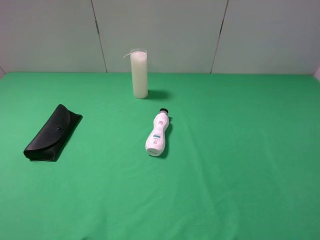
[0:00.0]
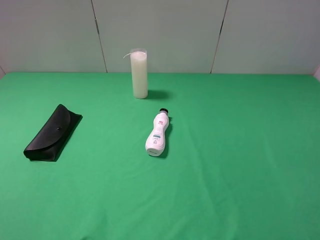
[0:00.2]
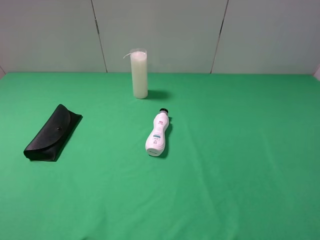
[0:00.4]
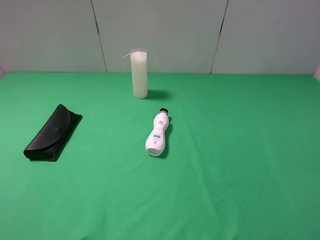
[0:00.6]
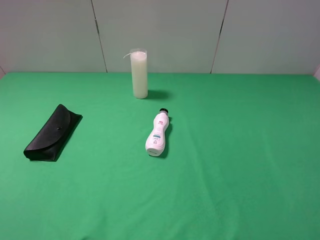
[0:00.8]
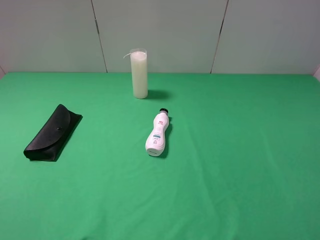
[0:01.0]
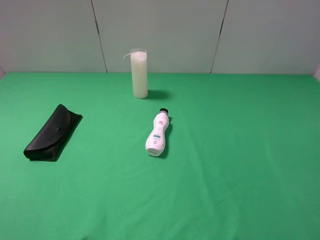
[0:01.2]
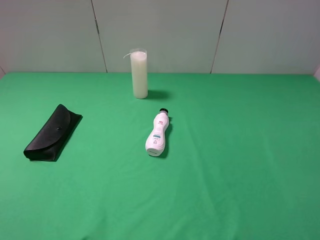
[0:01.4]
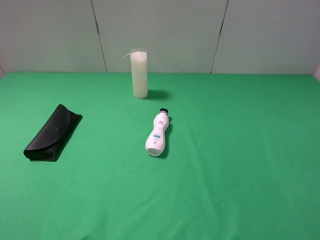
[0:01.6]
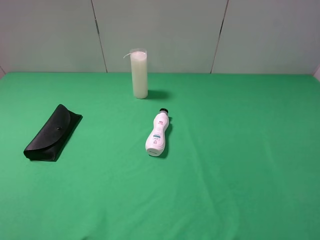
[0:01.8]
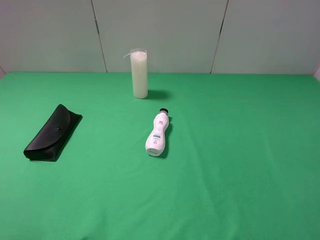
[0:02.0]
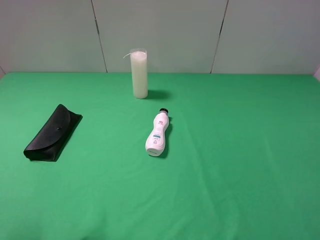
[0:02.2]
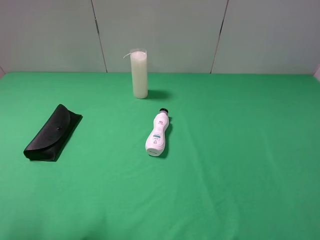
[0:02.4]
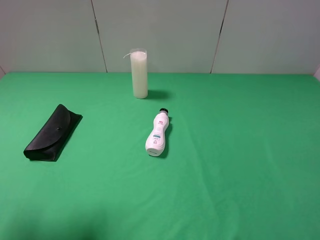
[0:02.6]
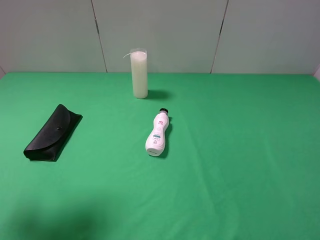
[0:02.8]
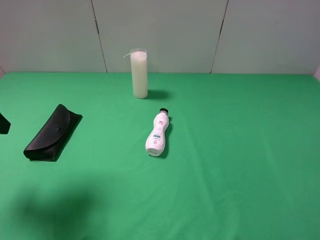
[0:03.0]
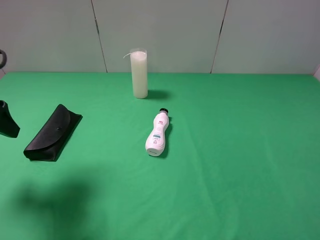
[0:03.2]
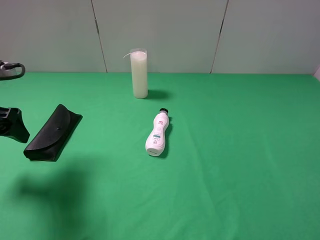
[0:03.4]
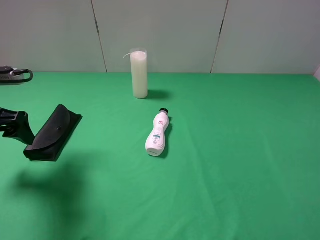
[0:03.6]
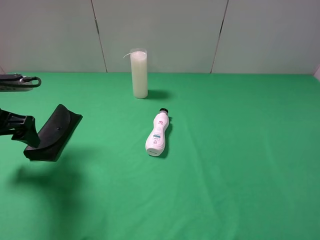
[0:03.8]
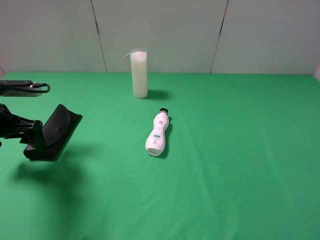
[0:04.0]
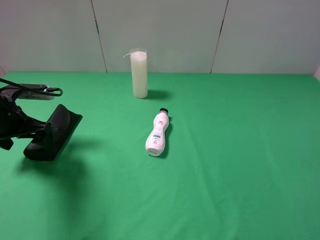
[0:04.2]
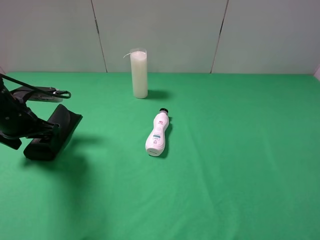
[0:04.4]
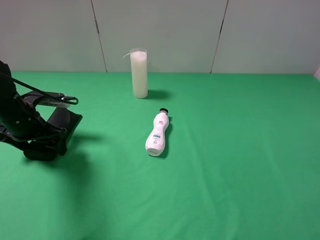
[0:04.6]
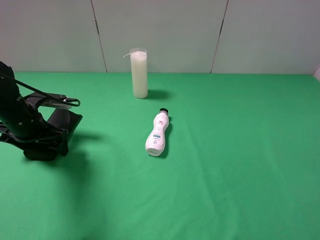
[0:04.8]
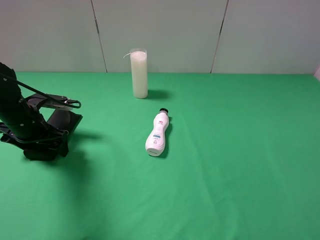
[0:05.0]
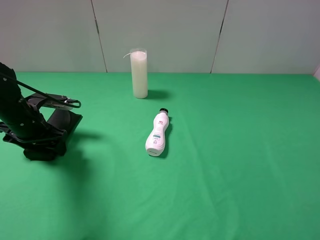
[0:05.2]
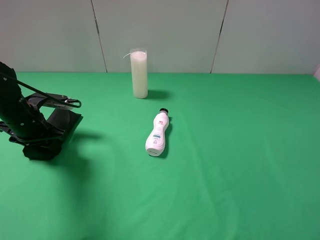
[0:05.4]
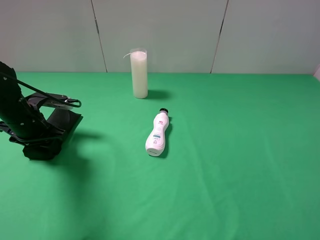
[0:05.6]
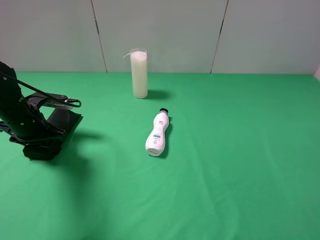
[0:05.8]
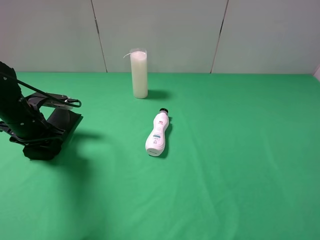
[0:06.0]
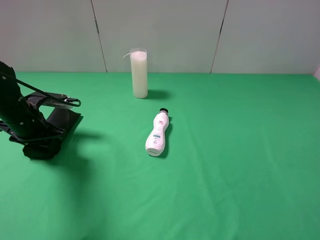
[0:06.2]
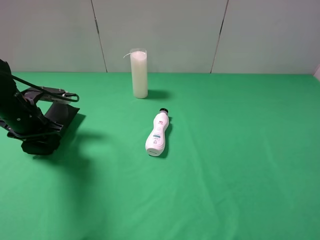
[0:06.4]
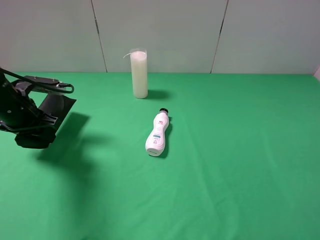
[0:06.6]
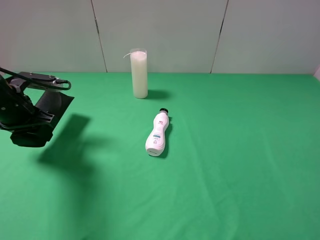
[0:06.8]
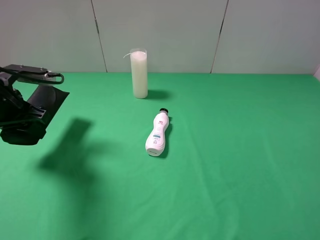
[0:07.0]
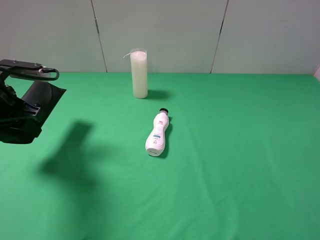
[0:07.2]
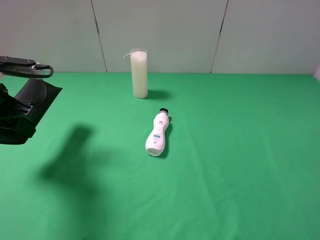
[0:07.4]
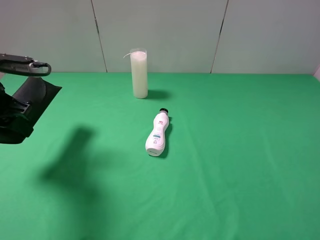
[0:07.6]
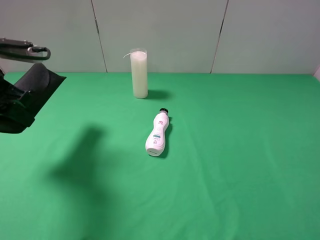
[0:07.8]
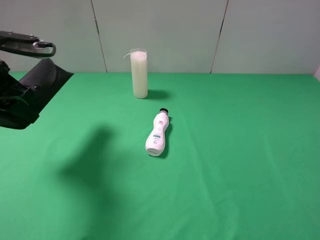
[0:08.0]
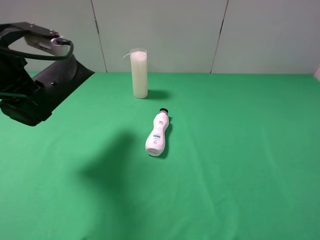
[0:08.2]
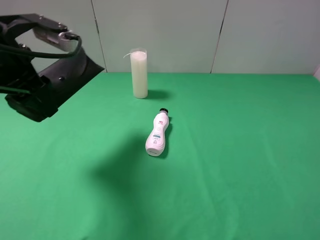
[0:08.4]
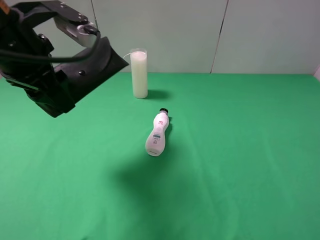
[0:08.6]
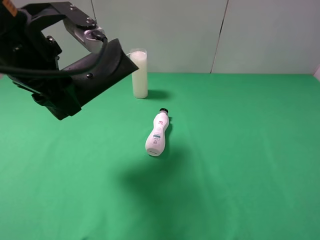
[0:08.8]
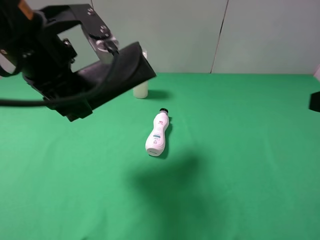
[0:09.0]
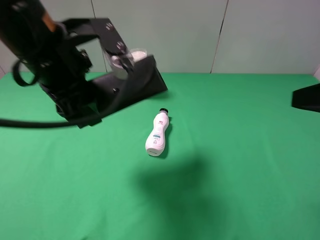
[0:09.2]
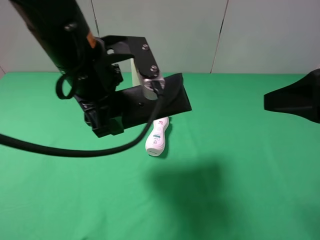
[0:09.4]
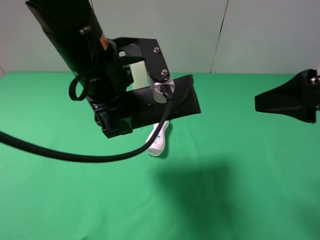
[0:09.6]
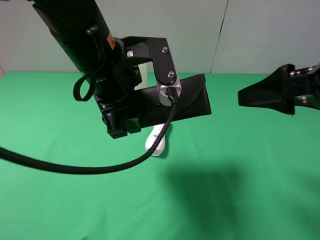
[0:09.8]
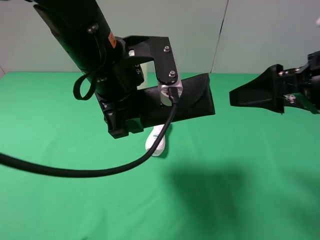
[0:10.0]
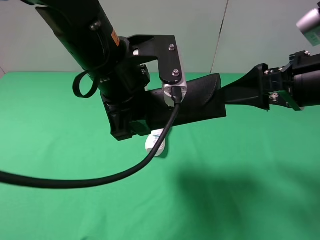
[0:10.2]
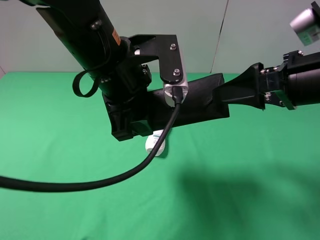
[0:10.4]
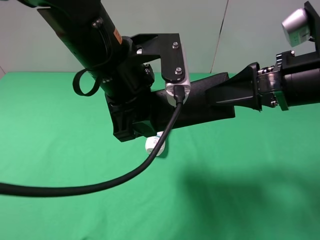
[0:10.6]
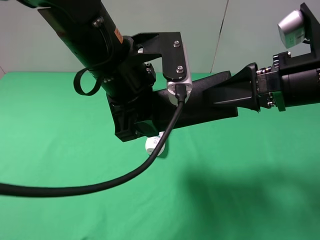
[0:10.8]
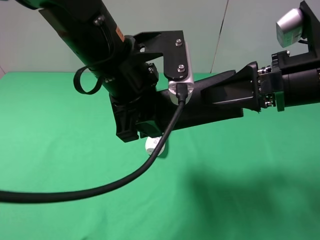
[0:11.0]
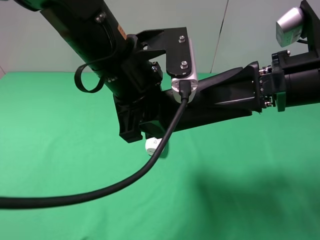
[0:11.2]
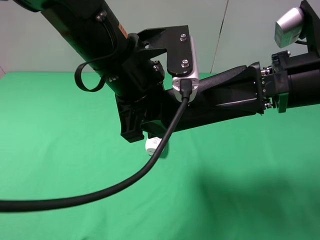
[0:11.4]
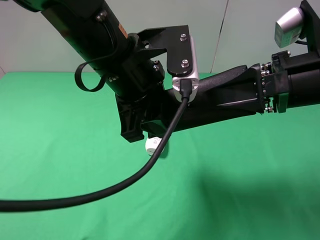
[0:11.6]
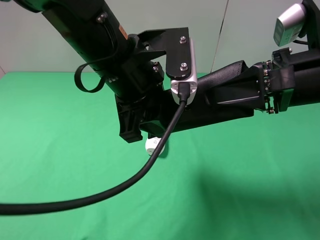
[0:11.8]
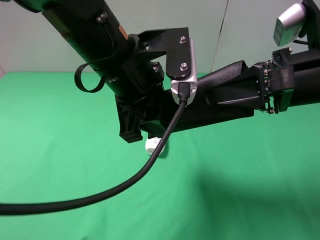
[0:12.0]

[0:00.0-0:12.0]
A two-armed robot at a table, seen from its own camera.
Task of the whole recording: use the left gripper to pick up the item and transfer it from the left gripper to the right gripper.
Step, 0:00.0 to 0:05.8: Use the left gripper to grab the eyeglass case on the left side of the table.
0:00.0 to 0:01.6: Both grippers stay put.
0:01.6 to 0:03.0: The left gripper heads forward, covering approximately 15 cm.
0:03.0 to 0:04.4: The left gripper travels downward and forward by some 15 cm.
0:04.4 to 0:06.0: The left gripper closes.
0:06.0 to 0:07.6: The left gripper moves upward, approximately 10 cm.
0:07.6 to 0:09.0: The left gripper heads to the right and upward, covering roughly 15 cm. Meanwhile the right gripper is displaced forward by about 10 cm.
0:09.0 to 0:10.4: The left gripper moves to the right, roughly 10 cm; the right gripper is displaced forward and to the left by about 10 cm.
0:10.4 to 0:12.0: The right gripper closes.

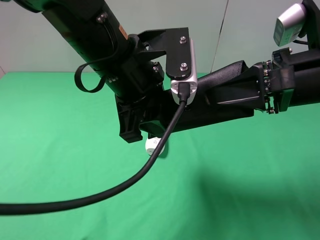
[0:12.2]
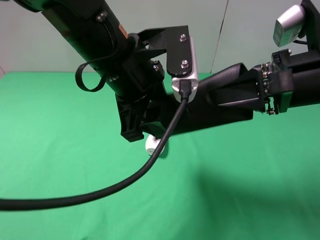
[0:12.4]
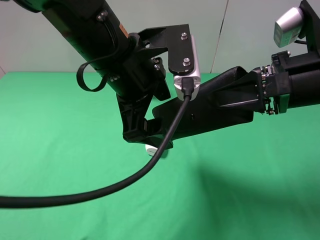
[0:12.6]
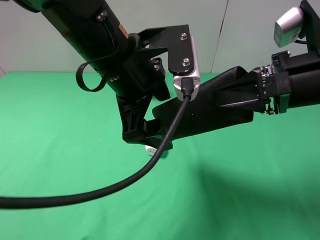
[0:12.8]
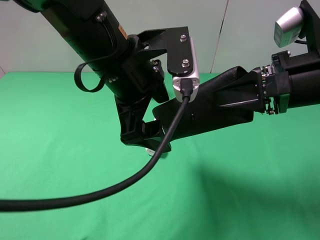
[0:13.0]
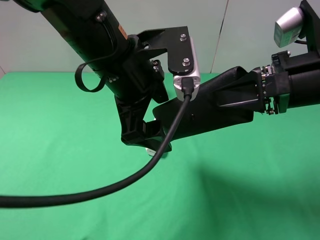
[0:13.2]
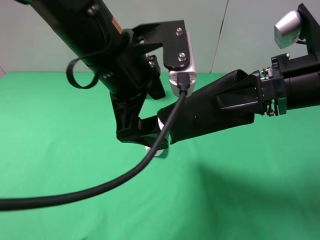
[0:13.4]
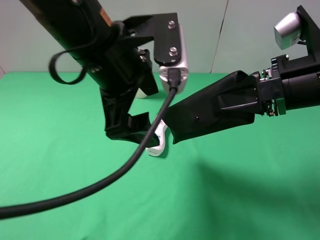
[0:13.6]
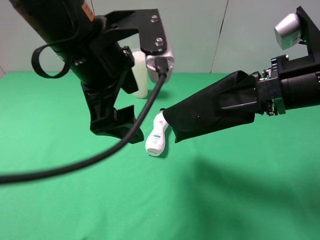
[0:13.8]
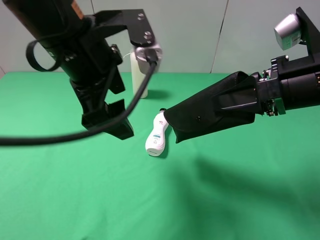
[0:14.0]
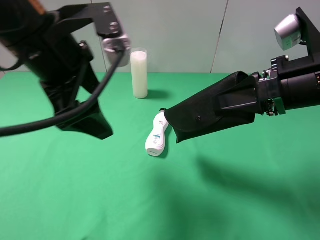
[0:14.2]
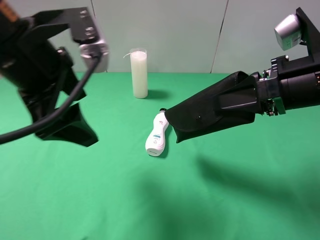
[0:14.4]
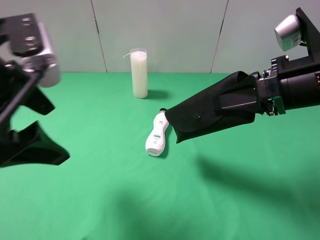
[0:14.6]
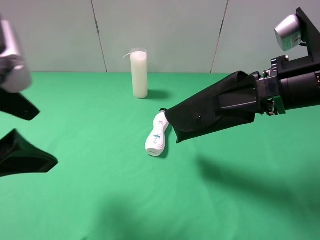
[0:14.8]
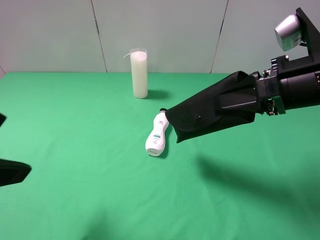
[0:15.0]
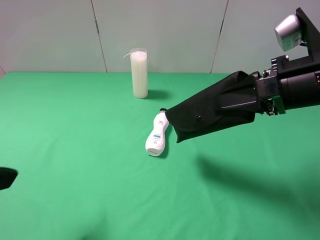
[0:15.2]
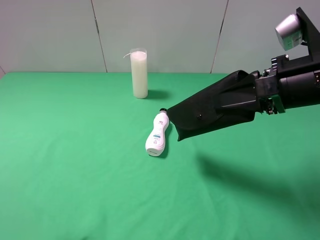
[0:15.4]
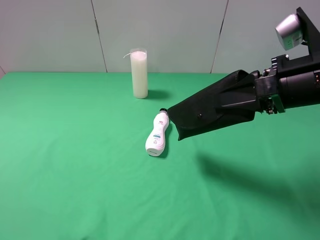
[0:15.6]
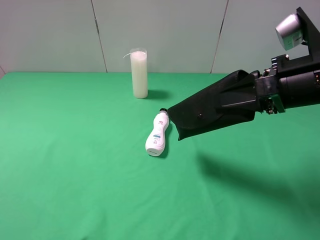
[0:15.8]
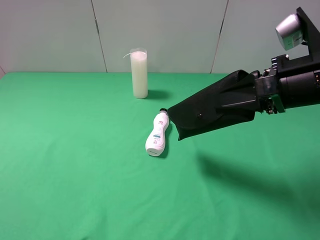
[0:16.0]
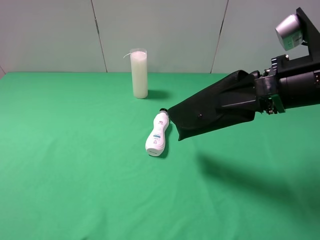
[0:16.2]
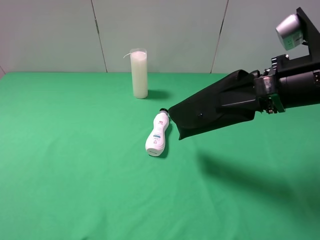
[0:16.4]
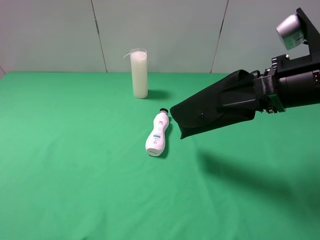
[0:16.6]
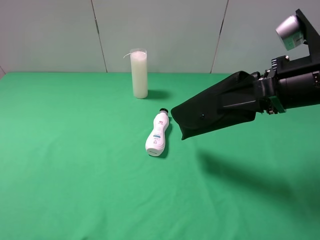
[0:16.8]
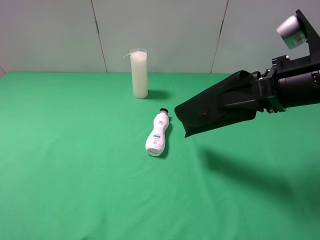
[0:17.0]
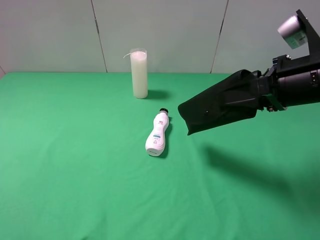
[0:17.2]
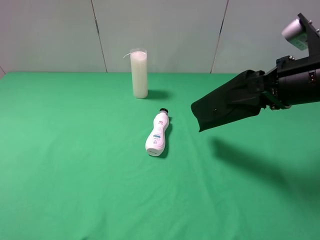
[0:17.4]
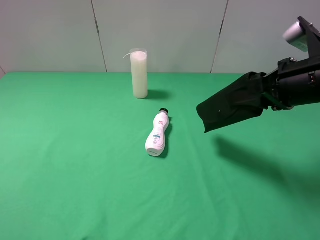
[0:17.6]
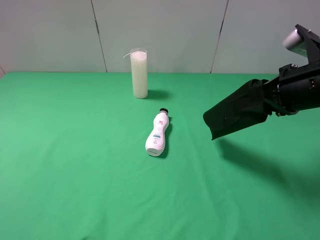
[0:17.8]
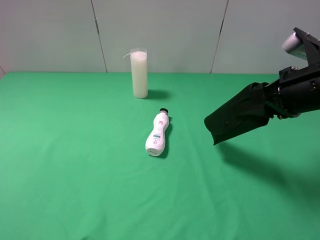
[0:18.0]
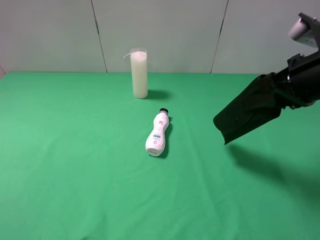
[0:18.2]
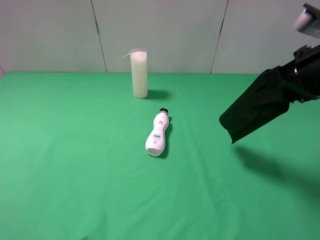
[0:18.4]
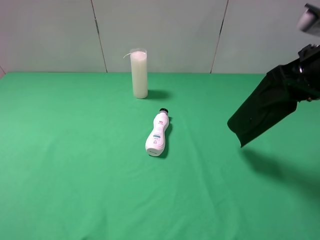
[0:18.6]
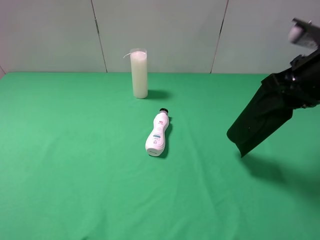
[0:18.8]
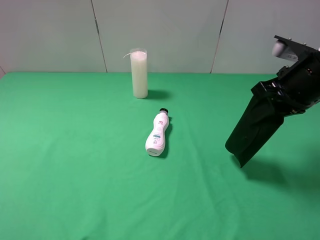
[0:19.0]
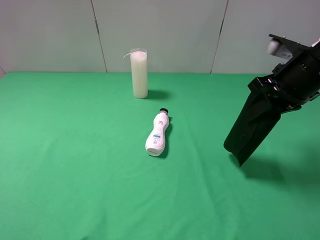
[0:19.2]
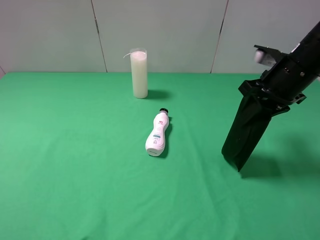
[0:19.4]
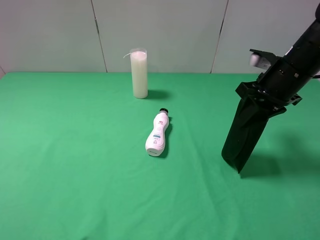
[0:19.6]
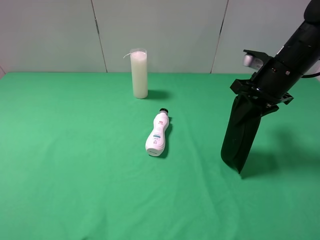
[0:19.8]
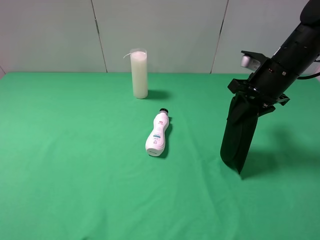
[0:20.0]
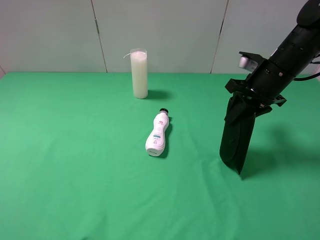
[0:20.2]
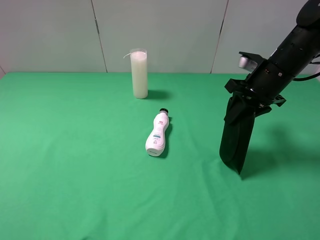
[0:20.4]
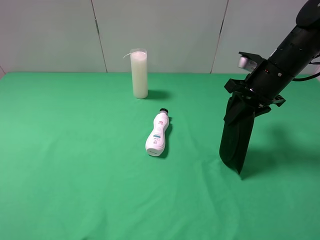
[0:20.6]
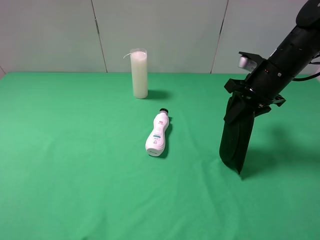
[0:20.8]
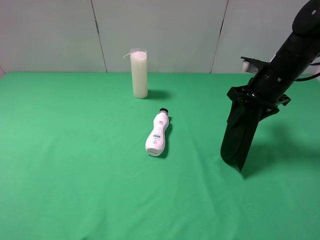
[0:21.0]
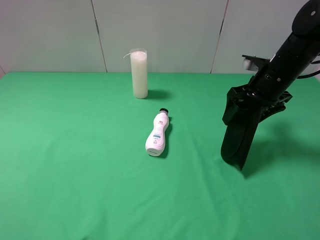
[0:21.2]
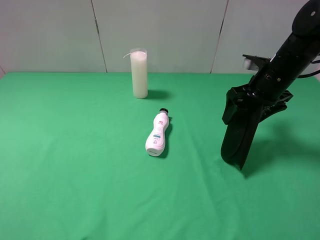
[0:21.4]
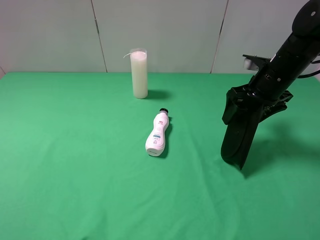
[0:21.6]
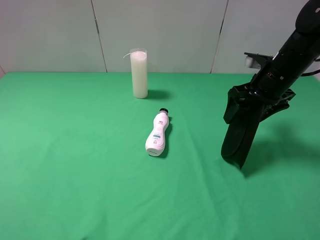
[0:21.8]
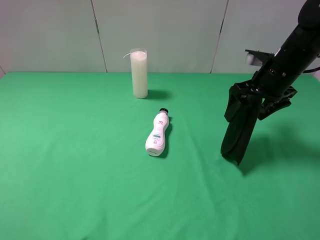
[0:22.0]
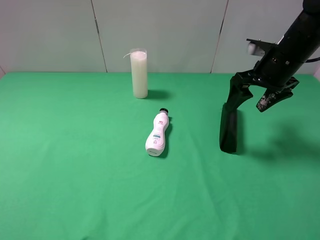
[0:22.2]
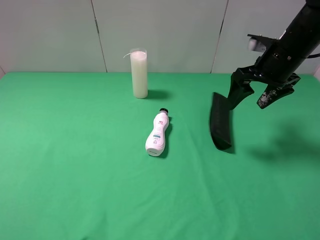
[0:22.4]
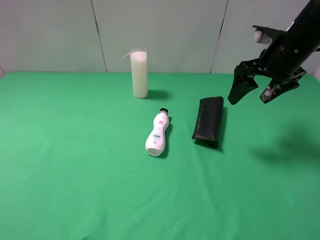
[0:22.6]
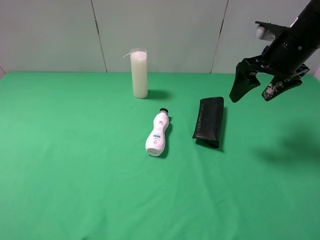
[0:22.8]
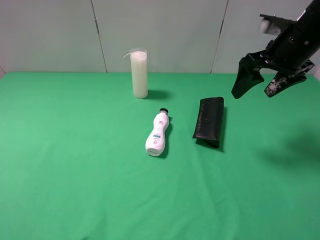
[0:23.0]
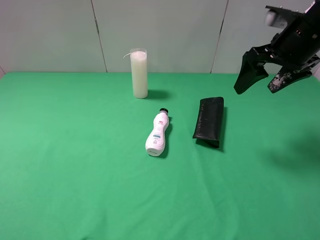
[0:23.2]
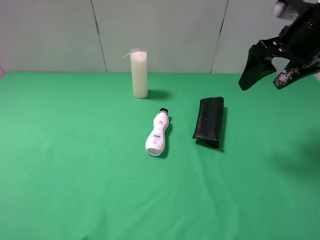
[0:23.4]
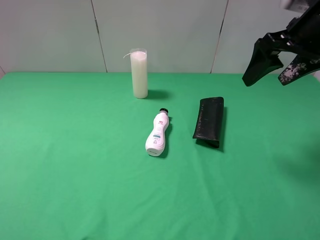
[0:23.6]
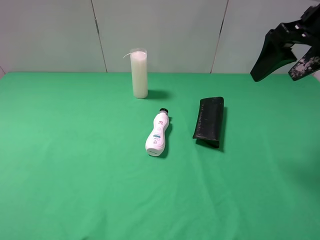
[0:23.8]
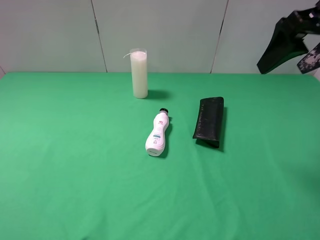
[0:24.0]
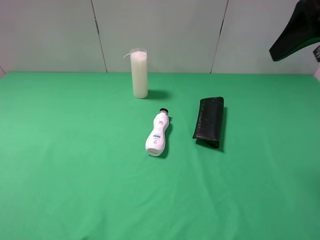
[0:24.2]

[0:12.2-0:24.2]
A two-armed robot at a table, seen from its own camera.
Task of the whole recording: use the left gripper to pick up the item and transfer it from the left gripper to the right gripper.
Step, 0:13.4 to 0:22.8: The right gripper places eyeglass case on the right side of the table.
0:12.2 to 0:13.8: The left gripper opens.
0:13.8 to 0:15.2: The left gripper is displaced to the left and backward by roughly 25 cm.
0:15.2 to 0:16.6: The left gripper travels backward by about 5 cm.
0:18.2 to 0:19.8: The right gripper travels forward and downward by about 10 cm.
0:19.8 to 0:21.2: The right gripper opens up.
0:21.2 to 0:22.6: The right gripper moves upward, approximately 5 cm.
0:22.6 to 0:24.2: The right gripper is displaced upward and backward by roughly 15 cm.
